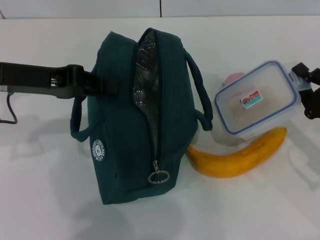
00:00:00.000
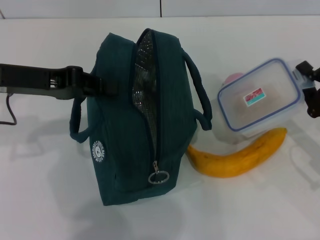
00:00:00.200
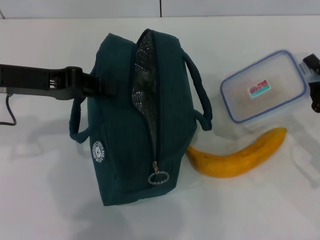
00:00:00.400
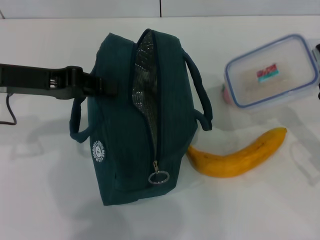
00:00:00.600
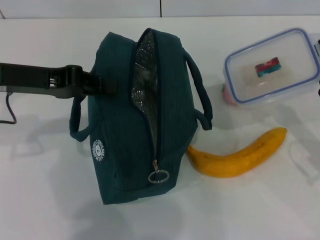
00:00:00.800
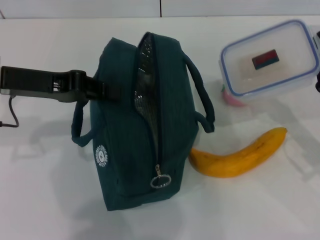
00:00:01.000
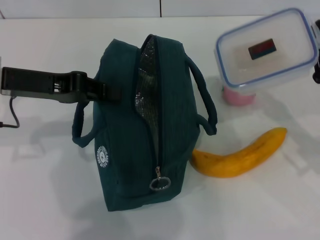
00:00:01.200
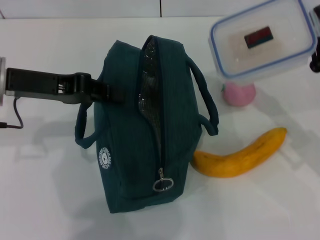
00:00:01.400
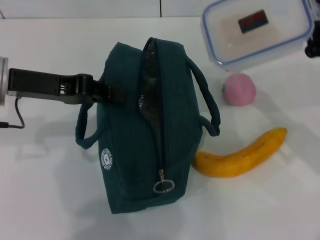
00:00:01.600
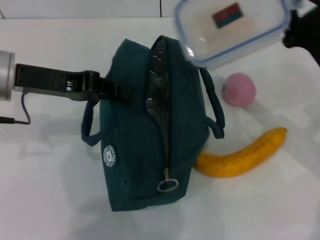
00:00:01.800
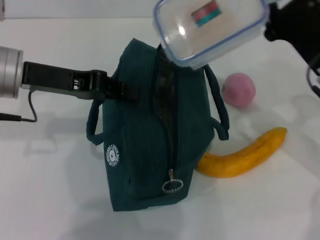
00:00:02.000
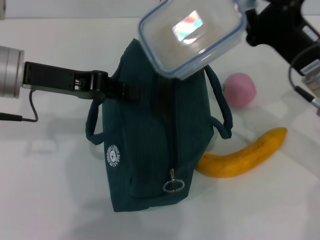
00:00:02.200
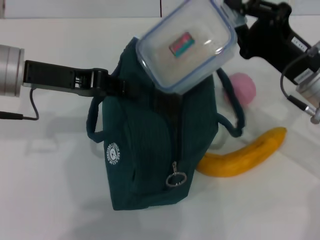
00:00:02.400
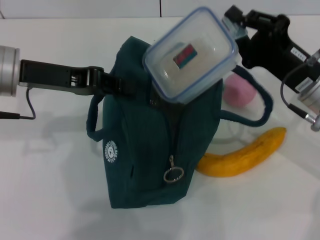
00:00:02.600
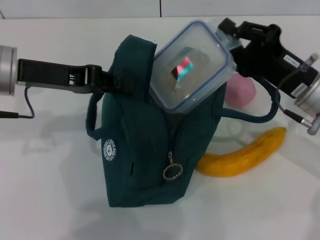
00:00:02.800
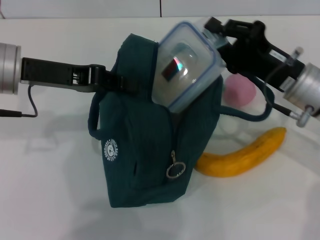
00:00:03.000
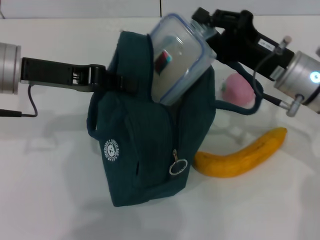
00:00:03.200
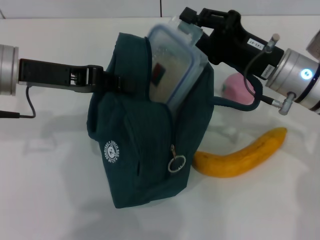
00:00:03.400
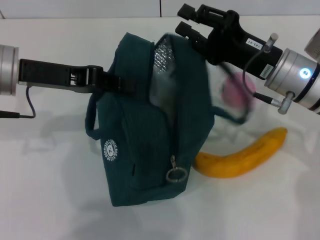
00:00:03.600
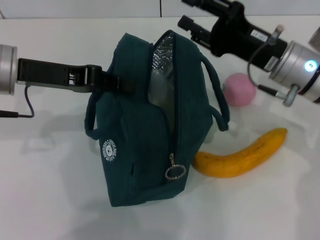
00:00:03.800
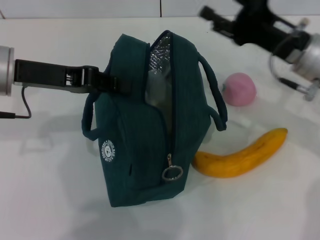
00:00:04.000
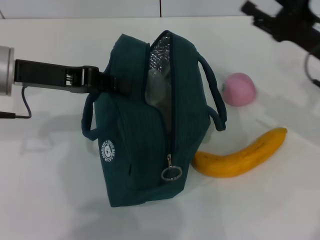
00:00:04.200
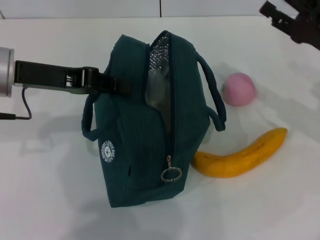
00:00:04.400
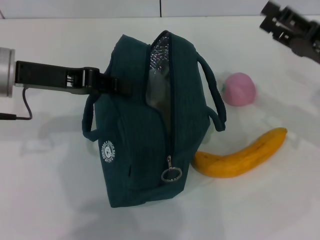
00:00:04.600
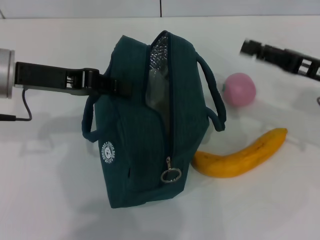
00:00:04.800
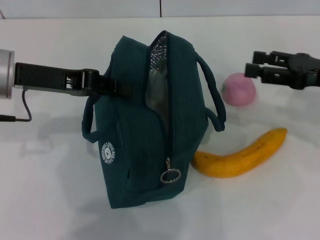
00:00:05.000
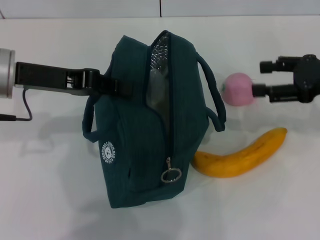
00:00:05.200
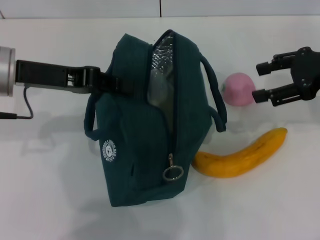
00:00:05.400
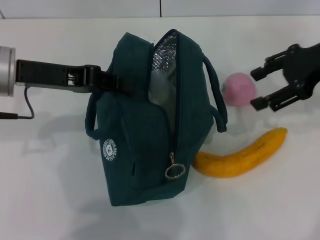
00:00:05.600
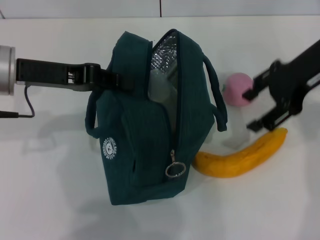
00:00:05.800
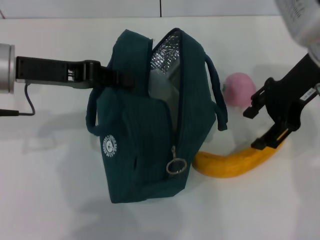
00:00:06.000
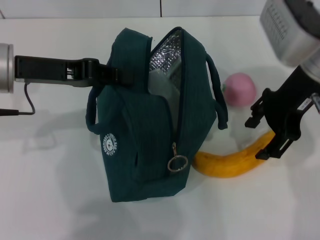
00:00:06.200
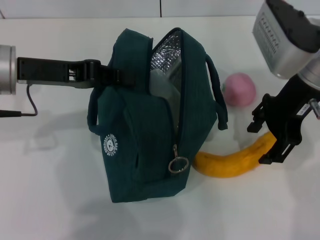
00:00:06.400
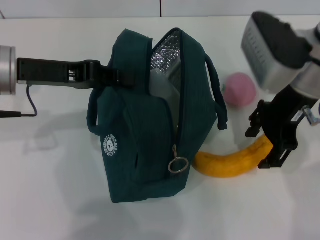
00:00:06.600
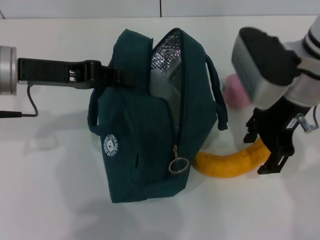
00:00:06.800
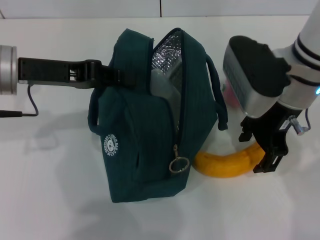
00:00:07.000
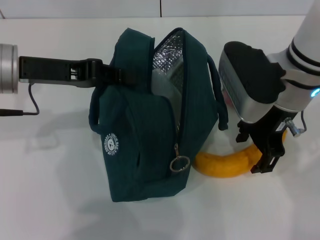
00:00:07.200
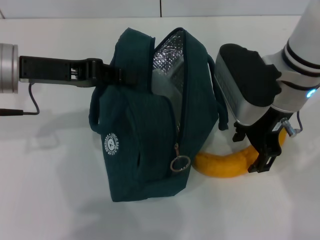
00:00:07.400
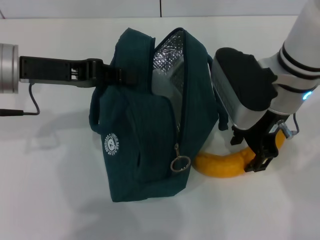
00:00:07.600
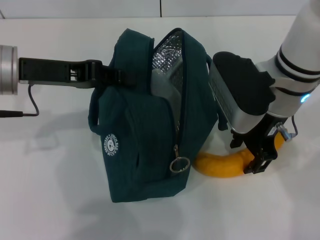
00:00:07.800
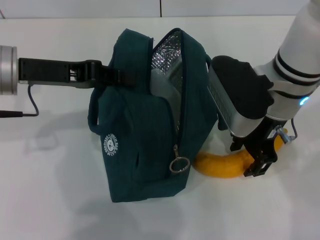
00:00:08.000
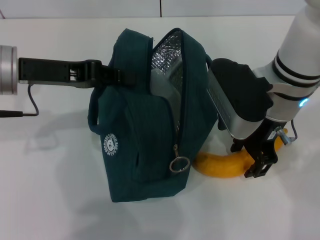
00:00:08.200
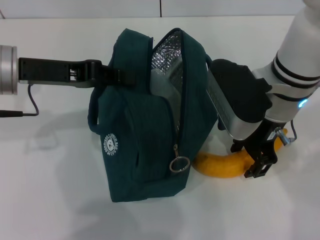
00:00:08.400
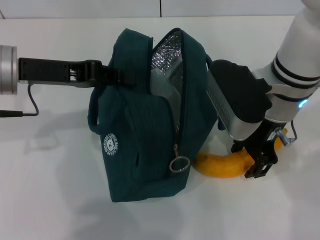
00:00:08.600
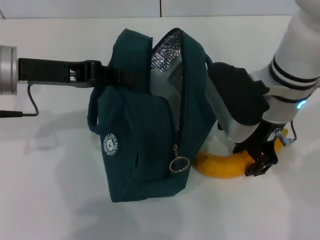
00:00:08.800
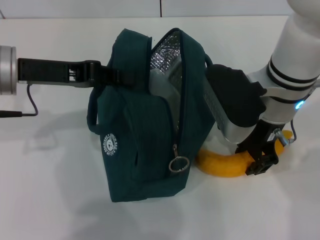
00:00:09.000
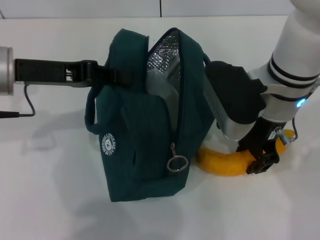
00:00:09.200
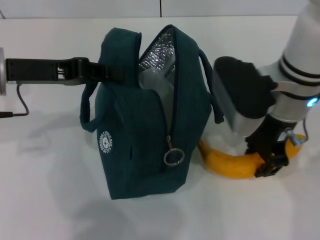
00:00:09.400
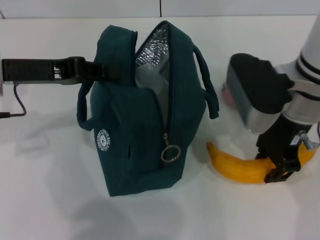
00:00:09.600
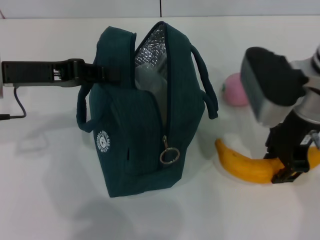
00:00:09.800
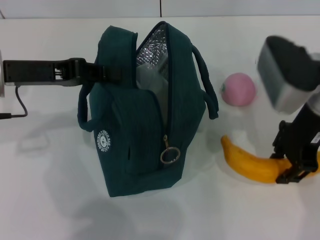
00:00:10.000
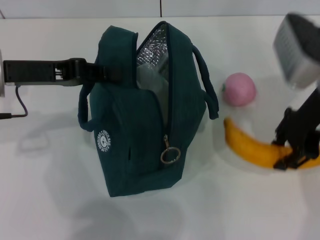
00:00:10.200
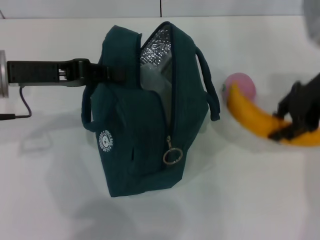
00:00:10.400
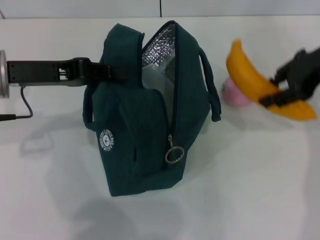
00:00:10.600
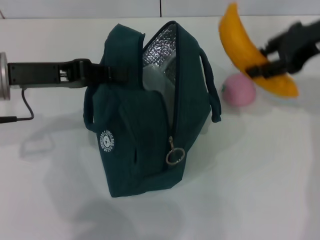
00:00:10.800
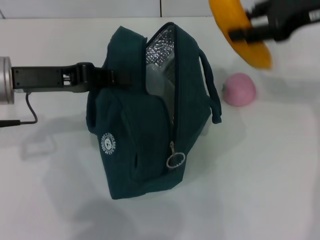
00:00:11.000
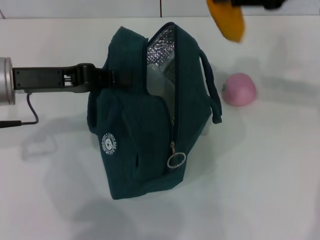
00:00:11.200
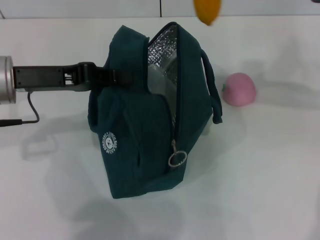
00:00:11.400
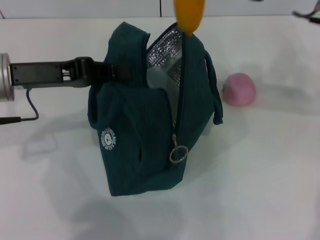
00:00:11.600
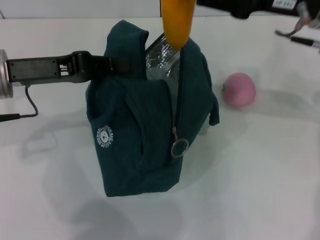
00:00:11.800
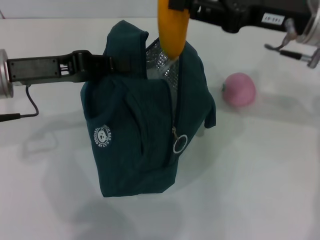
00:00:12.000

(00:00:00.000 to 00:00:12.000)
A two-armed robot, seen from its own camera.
Step, 00:00:00.000 - 00:00:03.600: Place the lunch box into the lunch bag with your right hand.
Step, 00:00:03.800 - 00:00:09.000: Take the banana with your right hand.
00:00:00.000 - 00:00:01.600: The right gripper heads upward, covering approximately 5 cm.
00:00:01.600 - 00:00:03.000: The right gripper is displaced to the left by approximately 5 cm.
00:00:03.000 - 00:00:04.400: The right gripper moves to the right, some 10 cm, and opens.
00:00:04.400 - 00:00:06.000: The right gripper moves upward and to the left, roughly 15 cm.
00:00:06.000 - 00:00:07.600: The right gripper goes approximately 5 cm to the left.
00:00:07.600 - 00:00:09.000: There are only small adjustments of the grippers.
00:00:09.000 - 00:00:10.400: The right gripper shifts about 10 cm to the right and upward.
00:00:10.400 - 00:00:12.000: The right gripper travels upward and back again, about 5 cm each way.

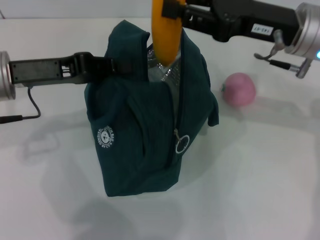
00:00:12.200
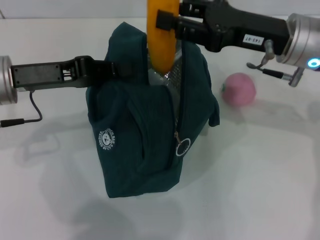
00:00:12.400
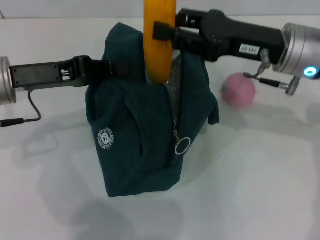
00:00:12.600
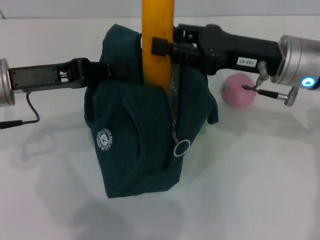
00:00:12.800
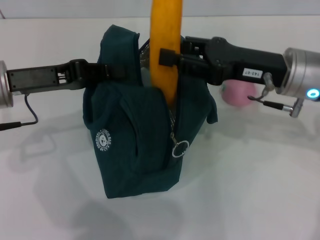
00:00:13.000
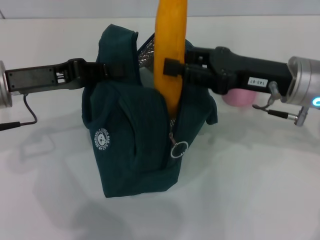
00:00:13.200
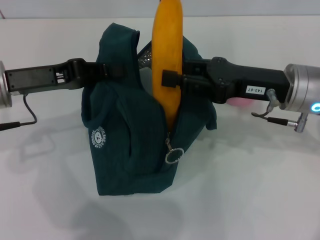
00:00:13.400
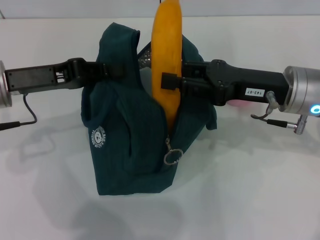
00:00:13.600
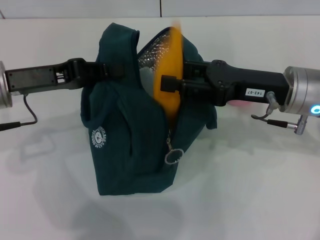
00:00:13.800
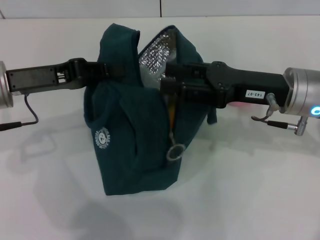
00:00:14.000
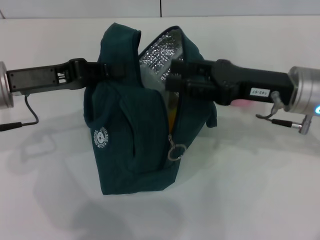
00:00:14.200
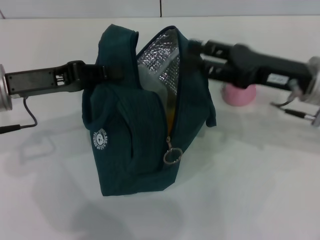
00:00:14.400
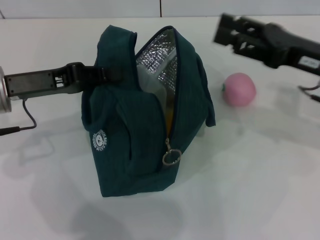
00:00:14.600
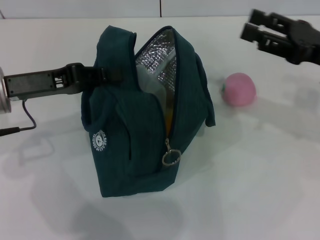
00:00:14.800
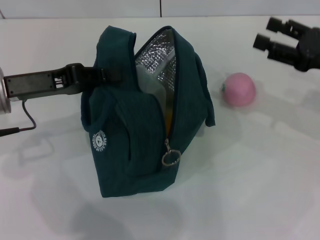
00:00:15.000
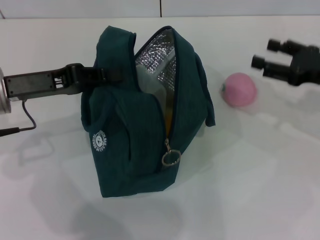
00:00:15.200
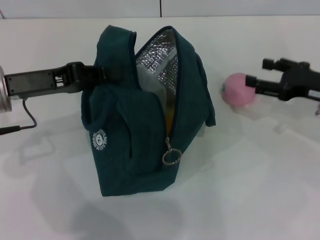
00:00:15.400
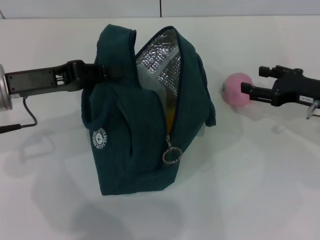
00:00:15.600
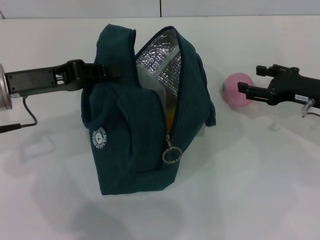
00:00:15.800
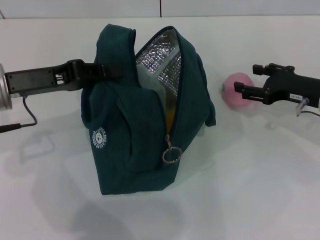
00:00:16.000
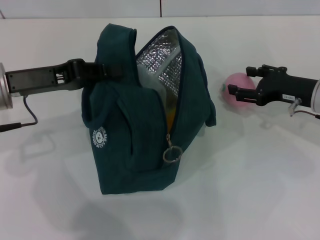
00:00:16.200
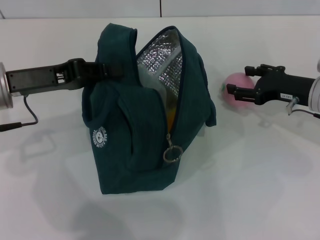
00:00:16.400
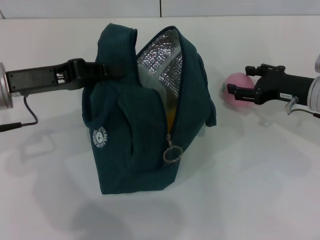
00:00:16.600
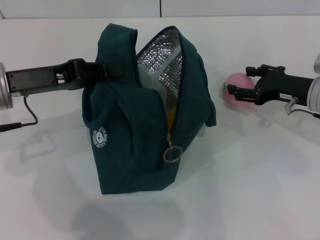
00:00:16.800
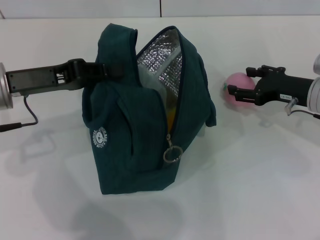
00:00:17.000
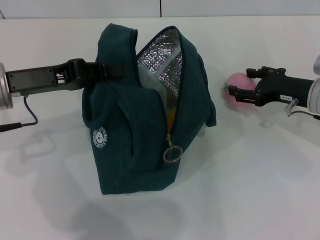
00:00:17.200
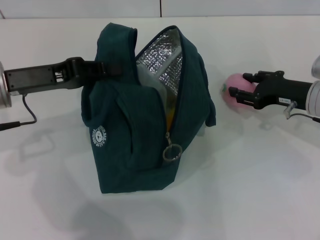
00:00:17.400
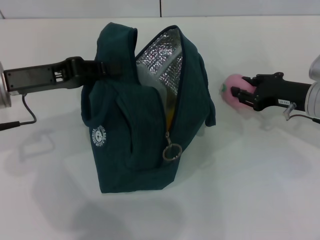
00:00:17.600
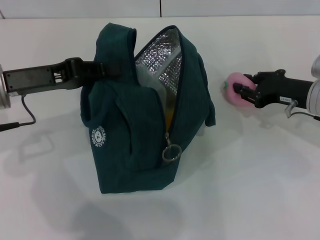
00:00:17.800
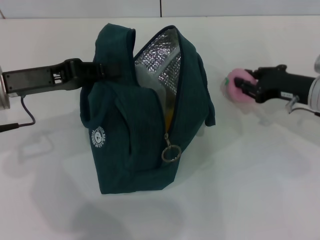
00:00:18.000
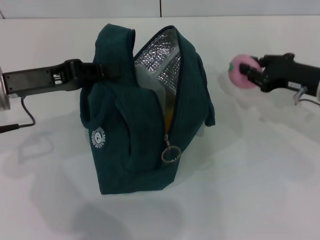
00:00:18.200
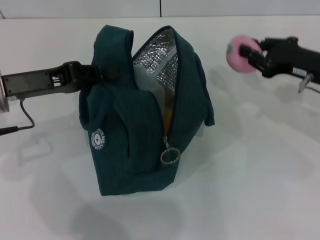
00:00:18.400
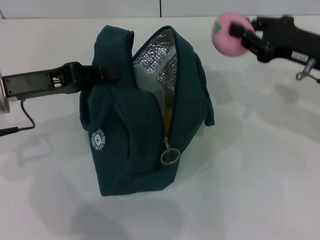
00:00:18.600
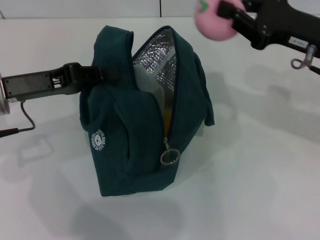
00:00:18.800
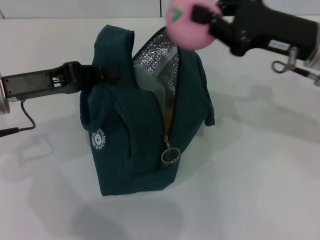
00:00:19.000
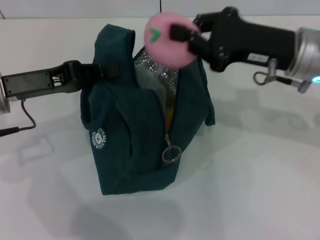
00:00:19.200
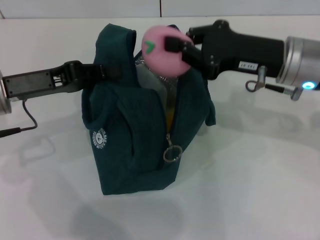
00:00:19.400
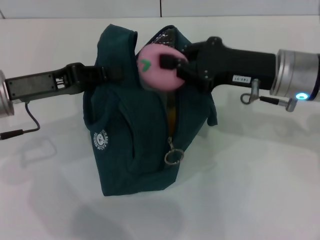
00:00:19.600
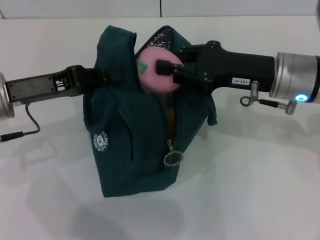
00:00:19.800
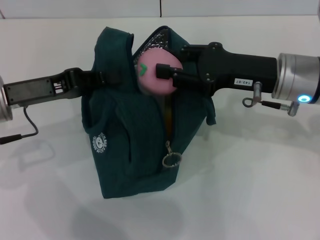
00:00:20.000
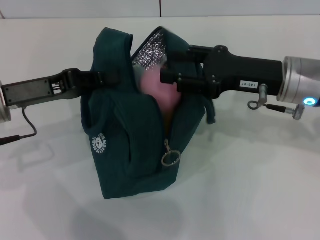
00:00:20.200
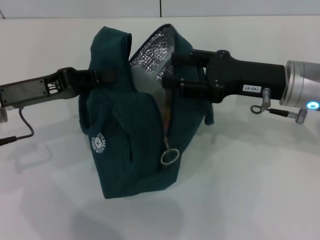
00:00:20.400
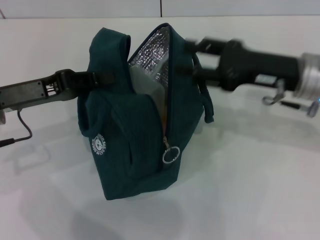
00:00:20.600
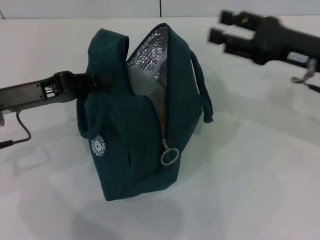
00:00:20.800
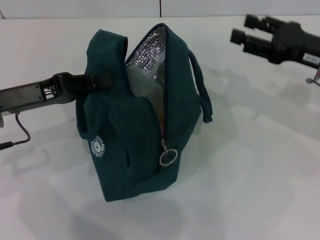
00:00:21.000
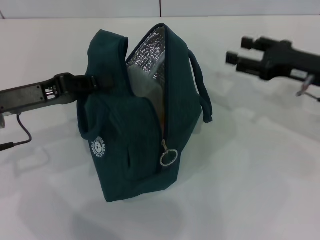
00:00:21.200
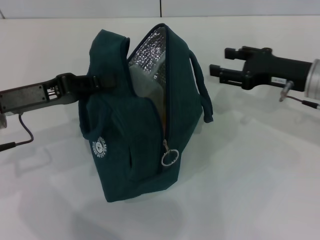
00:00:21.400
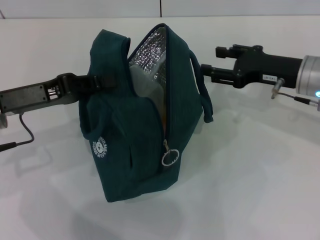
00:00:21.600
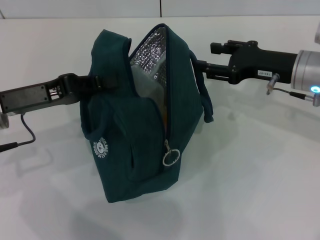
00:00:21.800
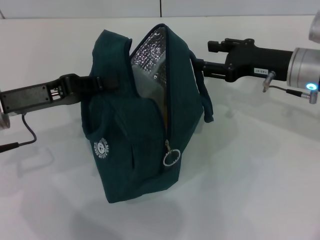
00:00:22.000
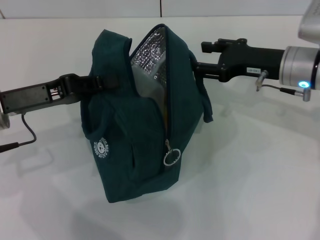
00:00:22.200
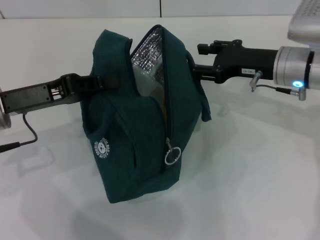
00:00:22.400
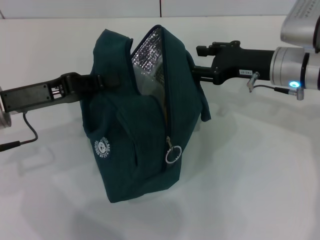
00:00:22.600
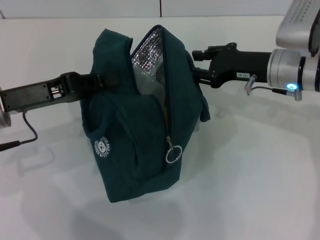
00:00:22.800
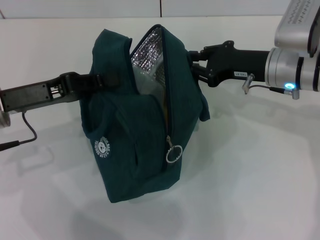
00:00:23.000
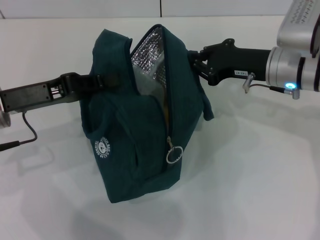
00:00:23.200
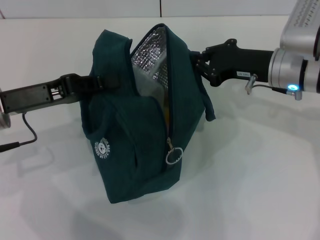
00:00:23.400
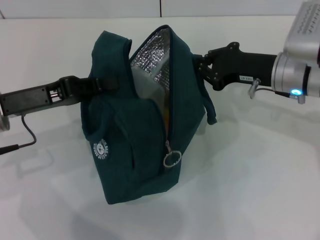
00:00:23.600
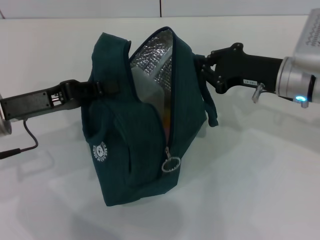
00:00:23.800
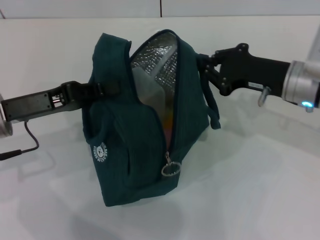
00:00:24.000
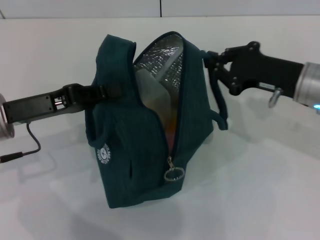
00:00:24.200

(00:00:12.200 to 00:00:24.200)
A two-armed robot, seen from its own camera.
Step, 00:00:14.200 - 00:00:17.600: Grab the peach with your right hand.
00:00:12.200 - 00:00:13.800: The right gripper heads downward, covering approximately 5 cm.
00:00:13.800 - 00:00:15.200: The right gripper is displaced to the right by roughly 10 cm.
00:00:15.200 - 00:00:16.600: The right gripper changes place by some 5 cm.
00:00:16.600 - 00:00:18.200: The right gripper closes.
00:00:18.200 - 00:00:19.800: The right gripper shifts roughly 10 cm to the left and upward.
00:00:19.800 - 00:00:21.200: The right gripper goes some 10 cm to the right, and opens up.
00:00:21.200 - 00:00:22.600: The right gripper goes about 5 cm to the left.
00:00:22.600 - 00:00:24.200: The right gripper moves some 5 cm, and closes its fingers.
